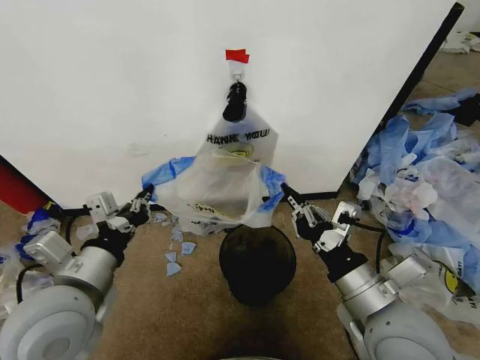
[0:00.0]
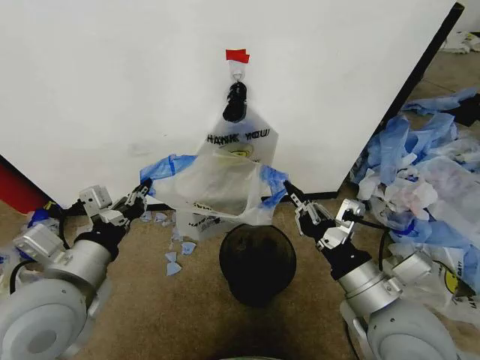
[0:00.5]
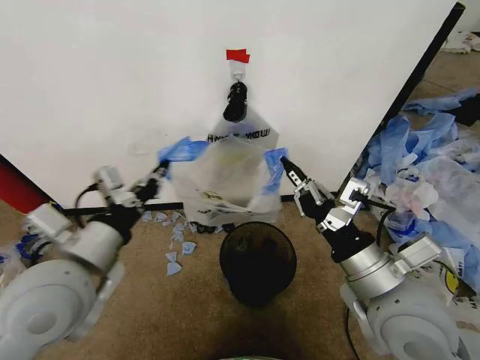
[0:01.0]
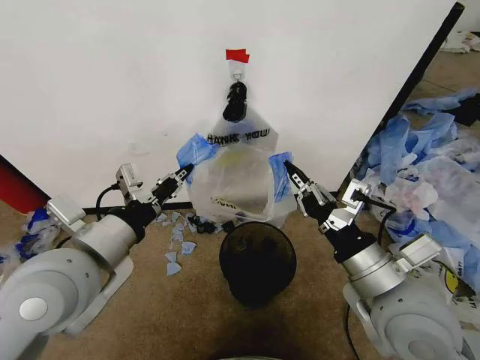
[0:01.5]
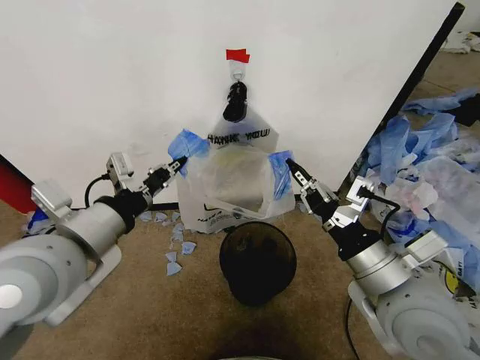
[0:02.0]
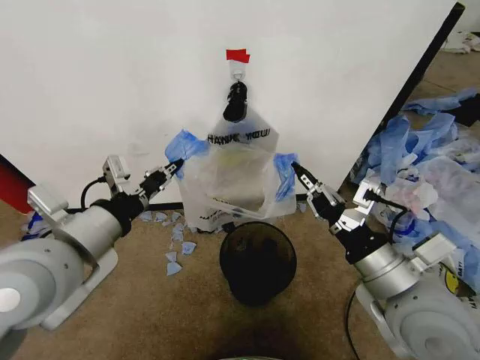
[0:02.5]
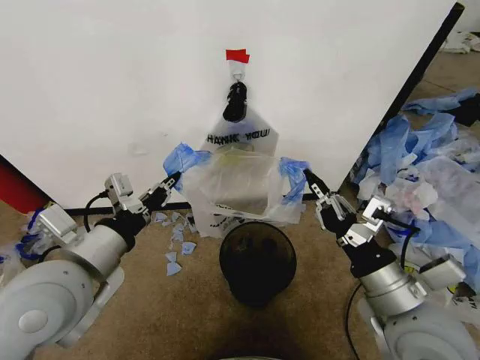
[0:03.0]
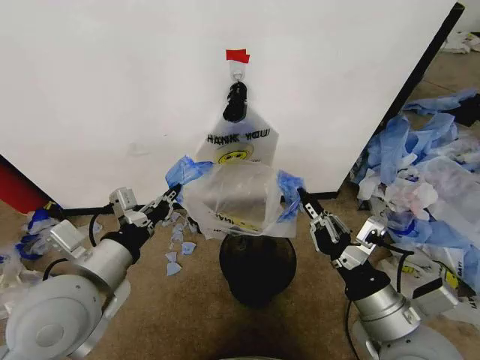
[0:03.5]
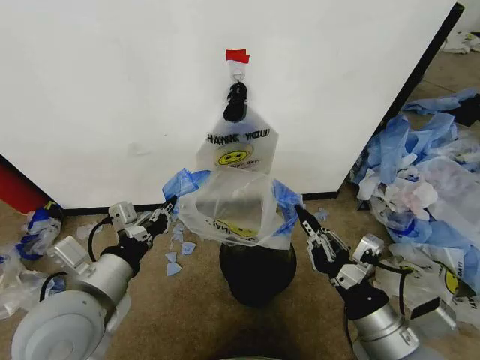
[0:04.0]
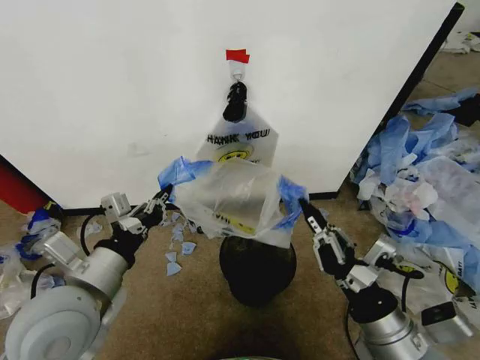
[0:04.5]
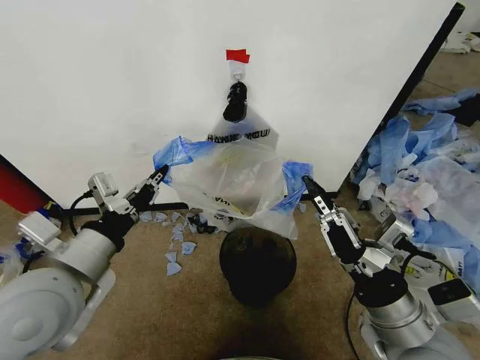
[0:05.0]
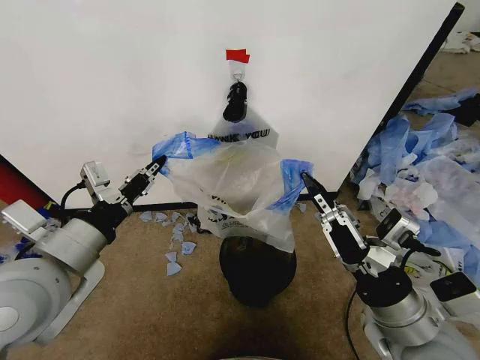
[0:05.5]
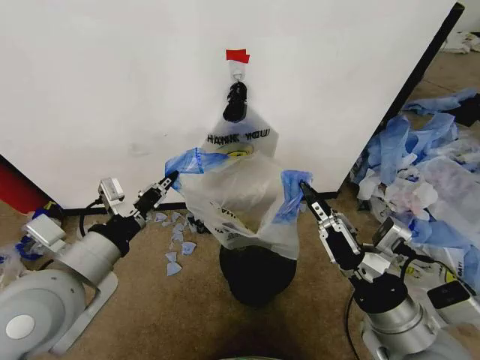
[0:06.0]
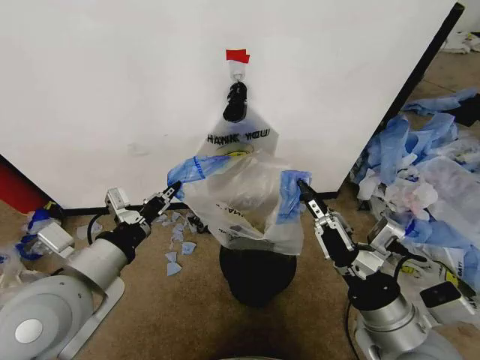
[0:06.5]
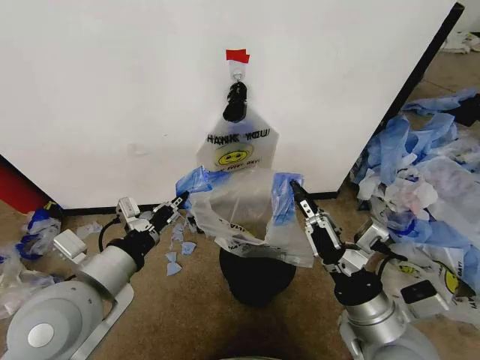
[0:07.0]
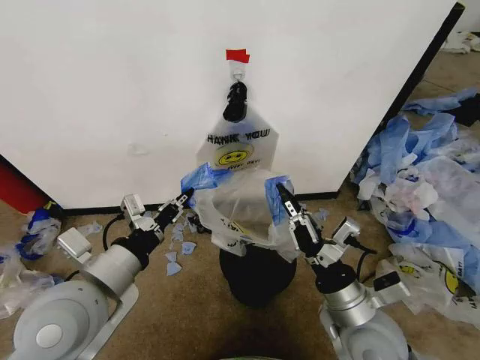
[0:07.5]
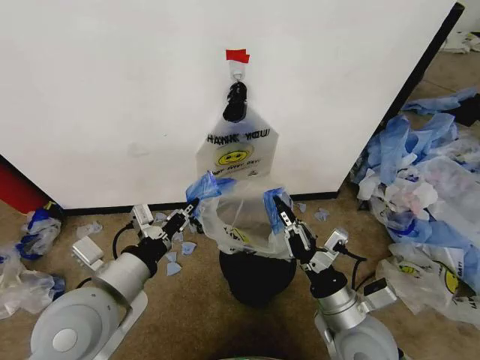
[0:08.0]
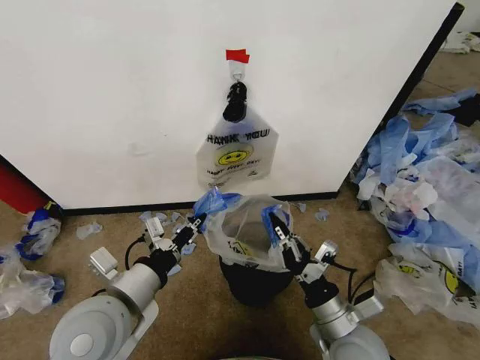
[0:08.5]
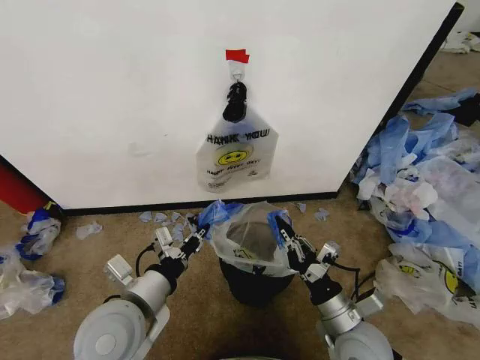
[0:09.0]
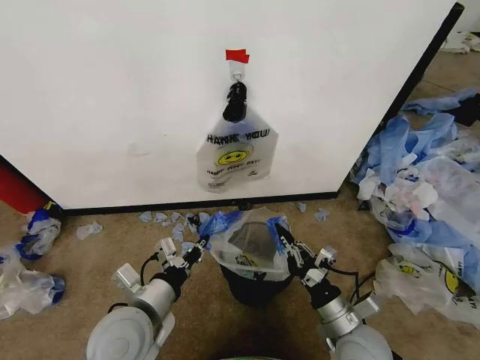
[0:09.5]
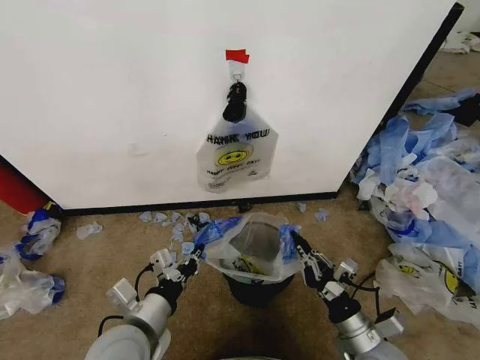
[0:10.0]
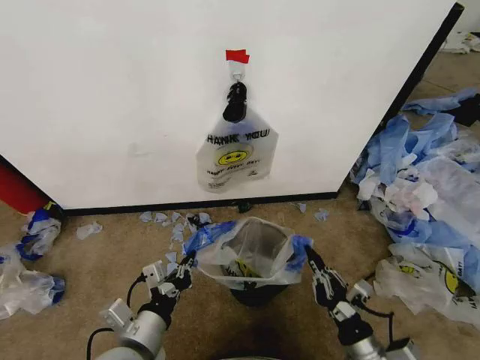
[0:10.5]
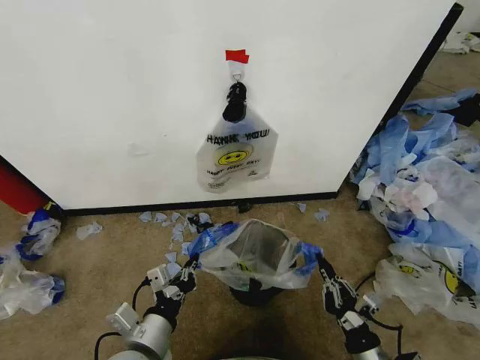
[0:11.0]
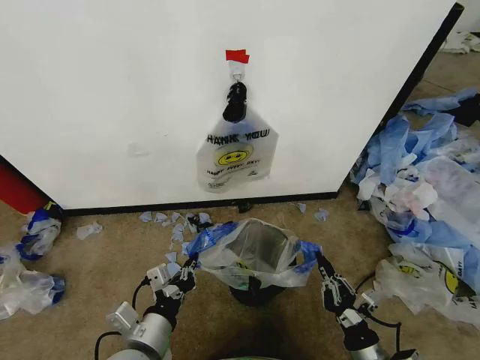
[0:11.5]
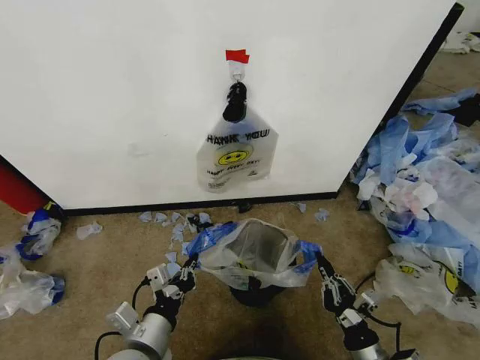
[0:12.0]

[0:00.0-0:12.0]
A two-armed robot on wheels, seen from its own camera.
Task of the whole recording: Pick up the garbage bag from the wall and place it over the trash bin.
0:00.0 to 0:02.0: The left gripper is displaced upward by approximately 10 cm.
0:02.0 to 0:04.0: The right gripper moves downward and backward, roughly 10 cm; the left gripper shifts some 10 cm downward.
0:06.0 to 0:08.0: The left gripper ends up approximately 5 cm from where it was, while the right gripper shifts approximately 10 cm downward.
0:08.0 to 0:10.0: The left gripper is displaced downward by about 10 cm, while the right gripper travels downward and to the right by about 10 cm.
0:10.0 to 0:12.0: The right gripper moves about 5 cm.

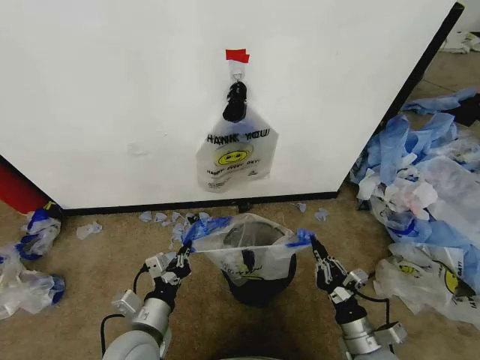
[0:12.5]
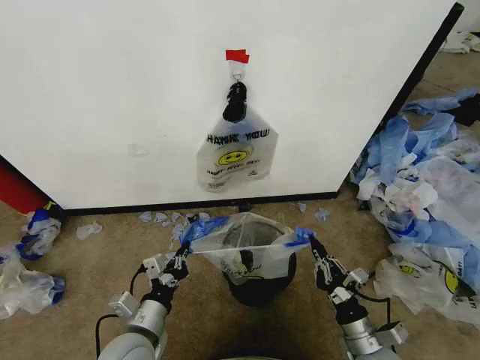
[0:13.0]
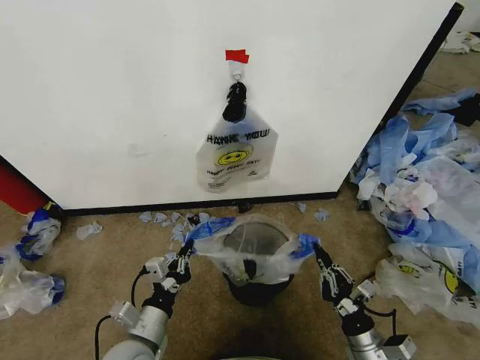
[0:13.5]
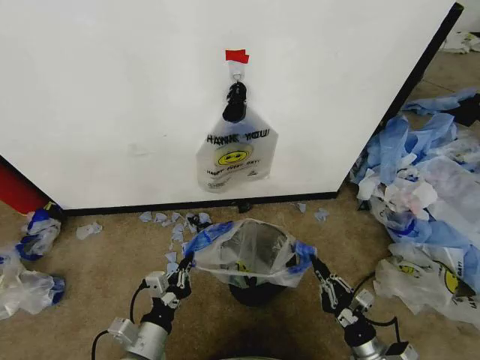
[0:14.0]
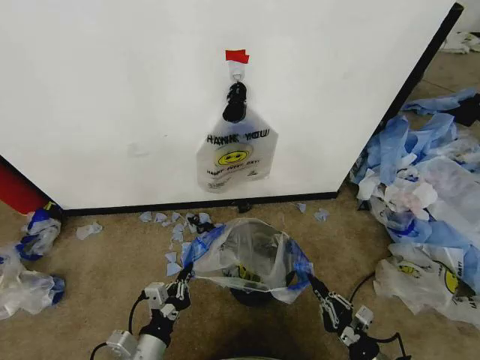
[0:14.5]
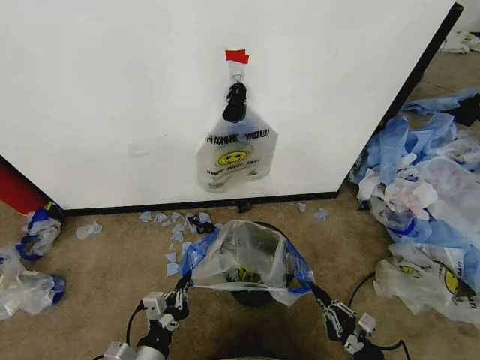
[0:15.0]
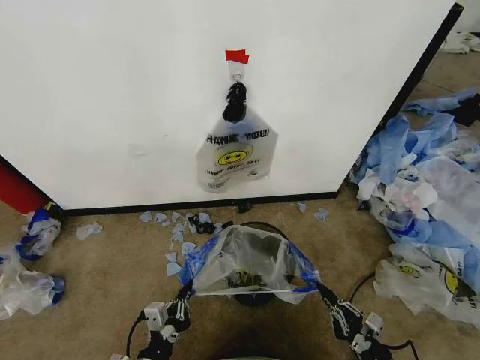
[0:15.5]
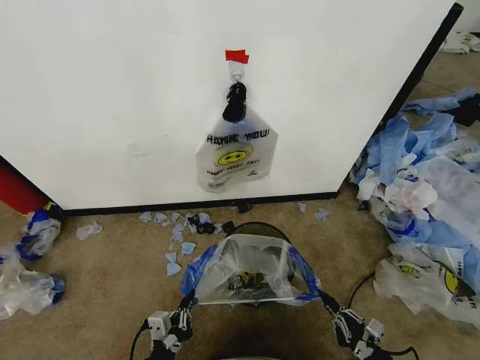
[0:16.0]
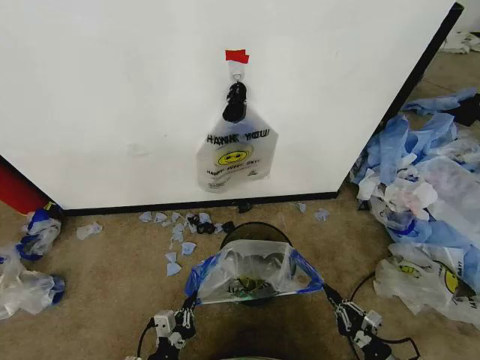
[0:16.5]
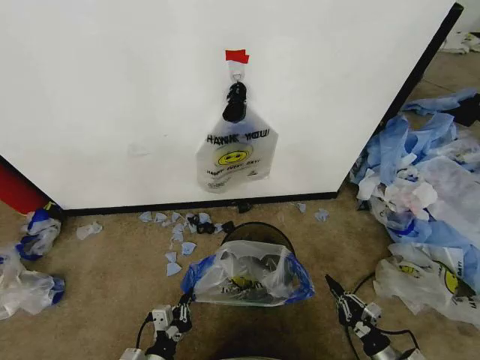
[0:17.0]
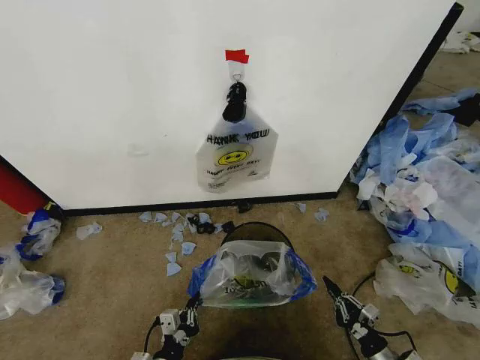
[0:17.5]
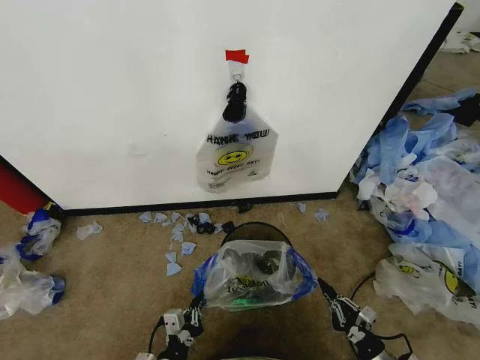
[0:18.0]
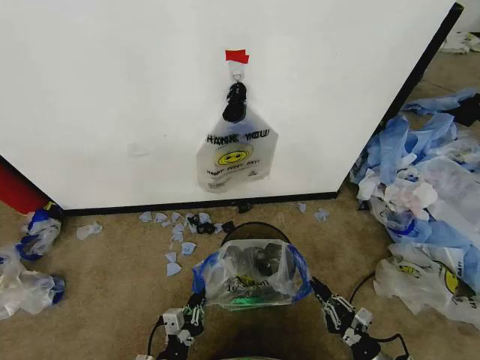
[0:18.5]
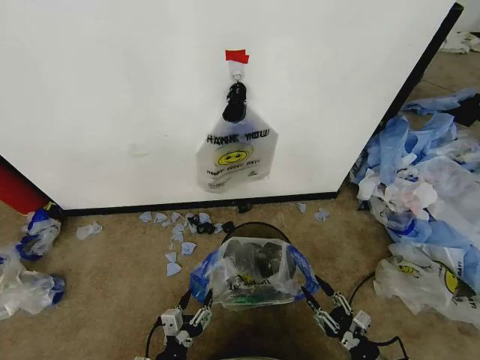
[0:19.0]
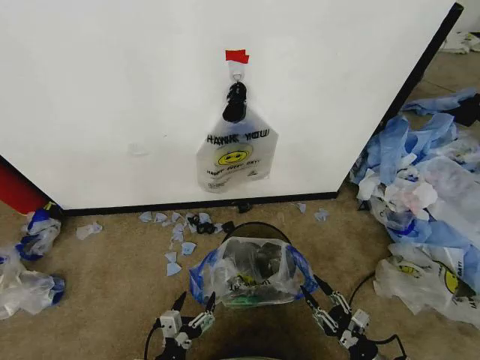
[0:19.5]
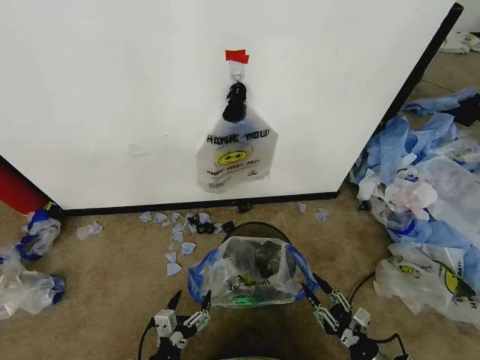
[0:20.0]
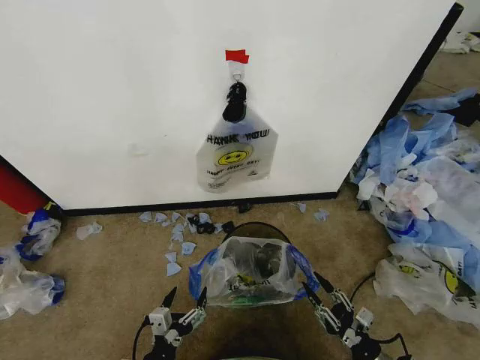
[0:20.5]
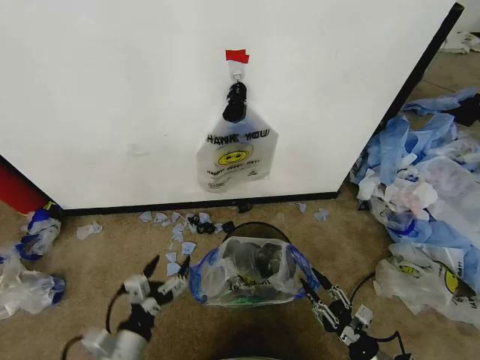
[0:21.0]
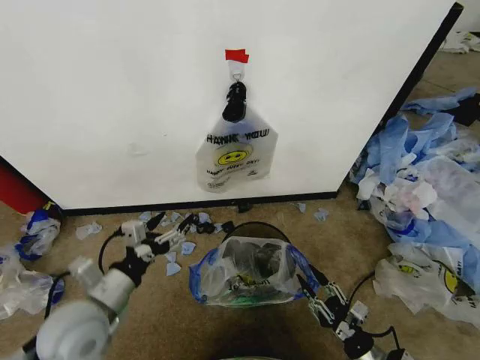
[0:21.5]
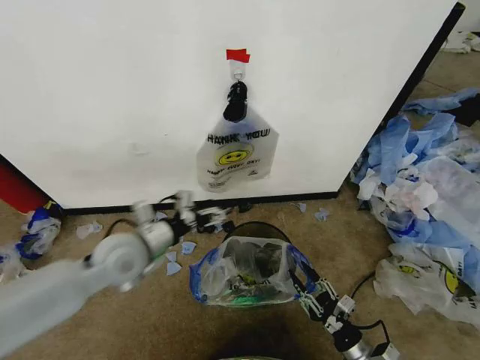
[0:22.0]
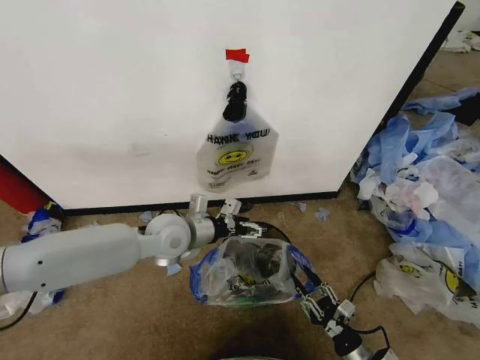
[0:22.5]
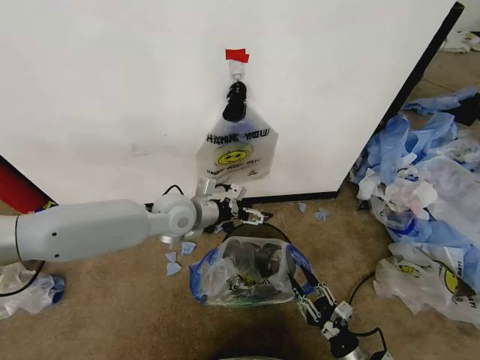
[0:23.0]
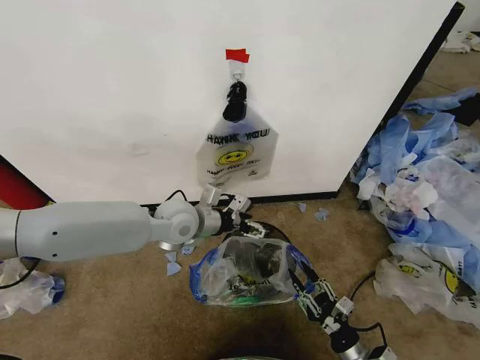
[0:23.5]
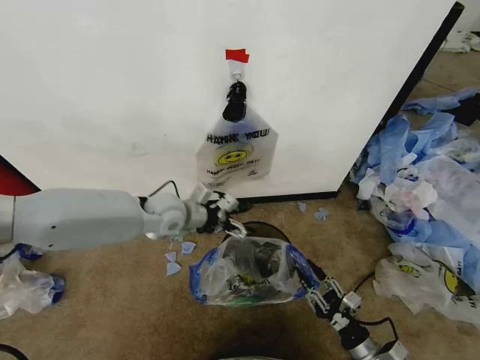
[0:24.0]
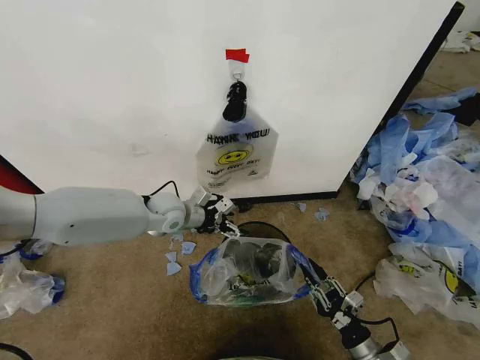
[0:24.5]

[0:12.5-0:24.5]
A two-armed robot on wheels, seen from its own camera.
Task of the whole recording: Pick up the garbage bag from the wall and place it over the trash bin.
0:12.5 to 0:14.5: The left gripper goes some 5 cm backward. The right gripper travels downward and to the right by some 10 cm.
0:14.5 to 0:16.5: The left gripper heads downward, covering approximately 5 cm. The right gripper goes some 5 cm to the right.
0:16.5 to 0:18.5: There are only small adjustments of the grippers.
0:18.5 to 0:20.5: The left gripper opens; the right gripper opens up.
0:20.5 to 0:22.5: The left gripper heads forward and upward, covering some 35 cm.
0:22.5 to 0:24.5: The left gripper shifts approximately 10 cm forward.

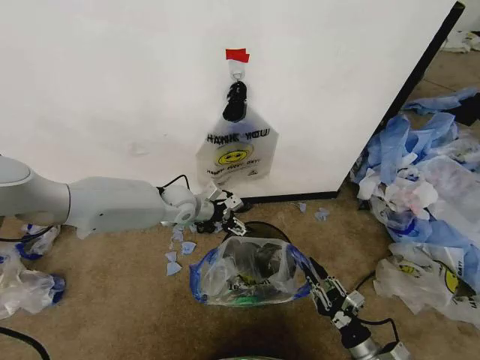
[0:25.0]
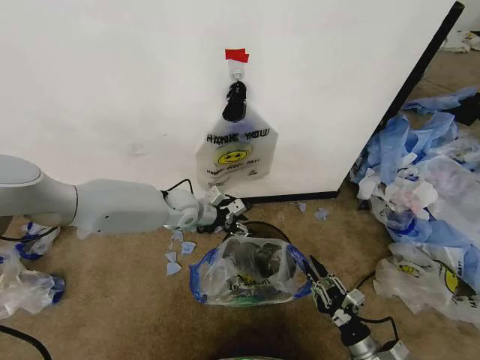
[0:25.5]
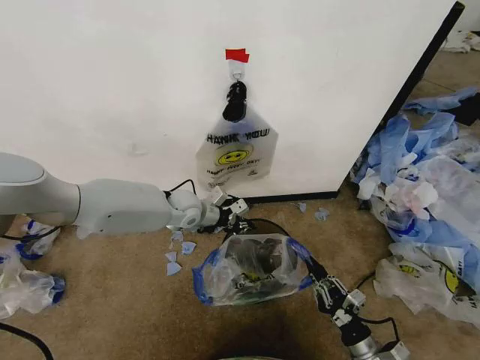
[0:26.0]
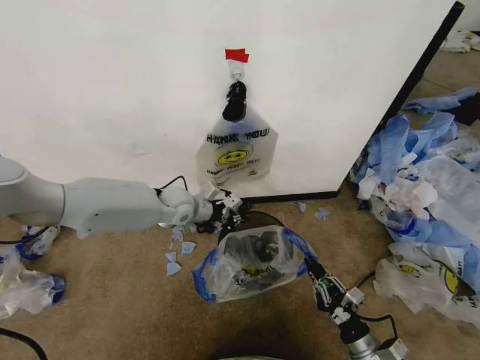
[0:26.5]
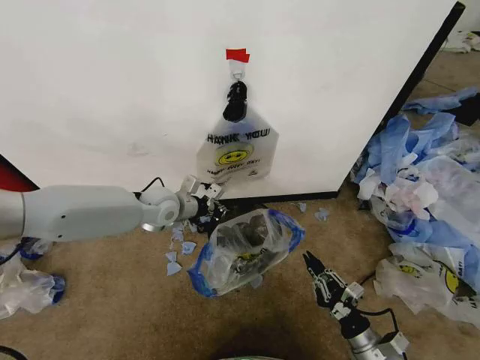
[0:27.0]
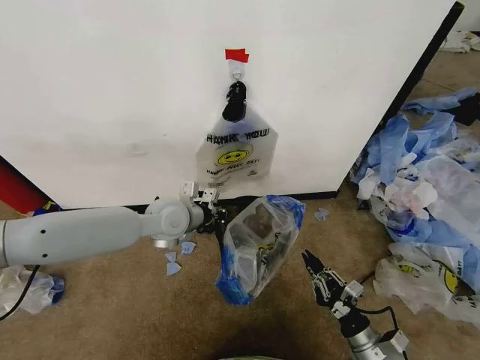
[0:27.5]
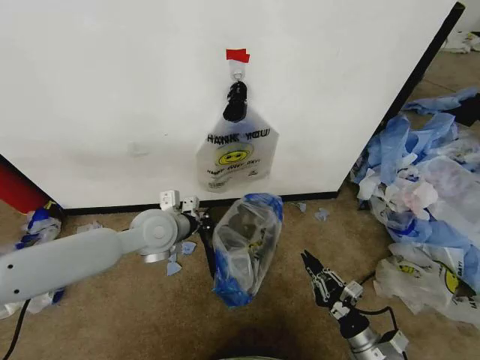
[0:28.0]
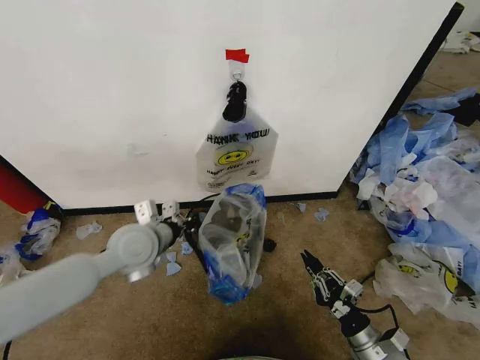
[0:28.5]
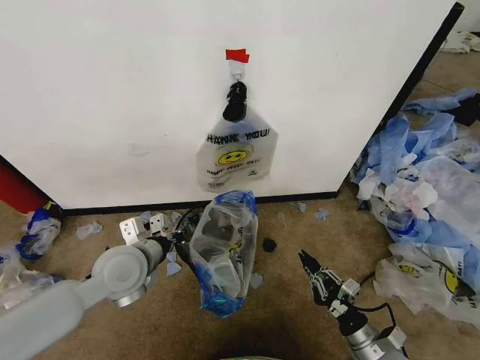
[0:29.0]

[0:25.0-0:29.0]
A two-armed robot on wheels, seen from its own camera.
Task of the whole recording: Pick up the garbage bag from the wall and place it over the trash bin.
0:25.0 to 0:27.0: The left gripper closes.
0:27.0 to 0:29.0: The left gripper moves backward, some 15 cm.
